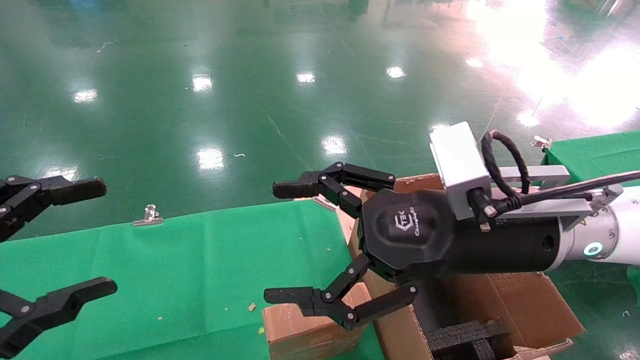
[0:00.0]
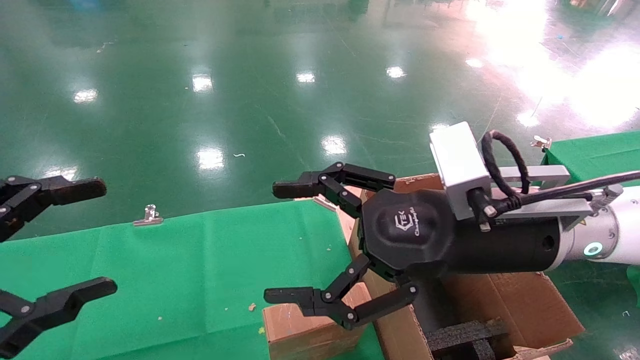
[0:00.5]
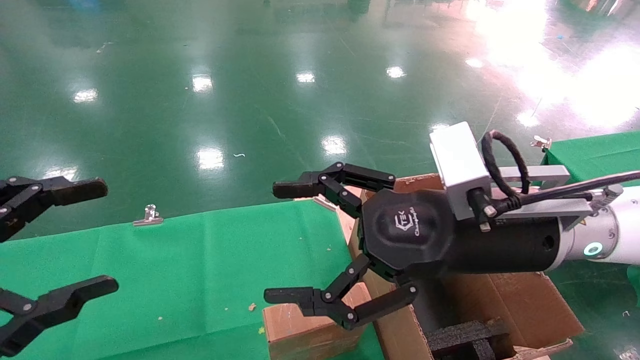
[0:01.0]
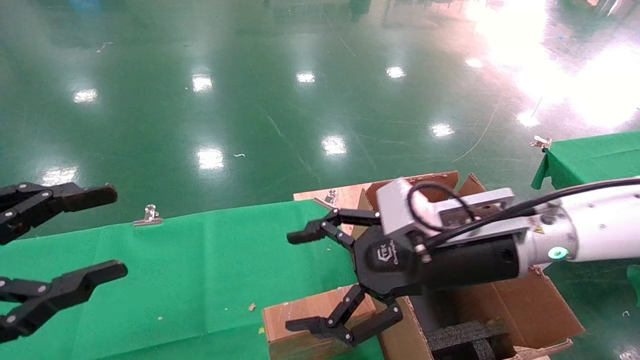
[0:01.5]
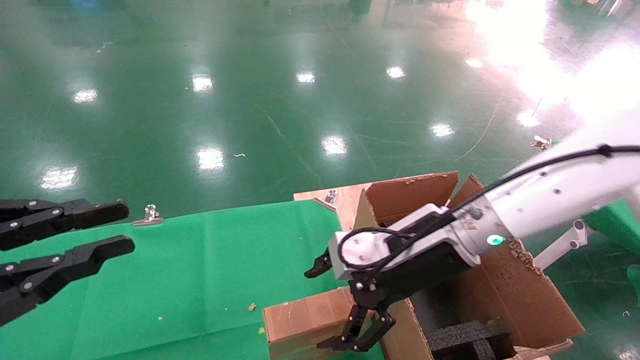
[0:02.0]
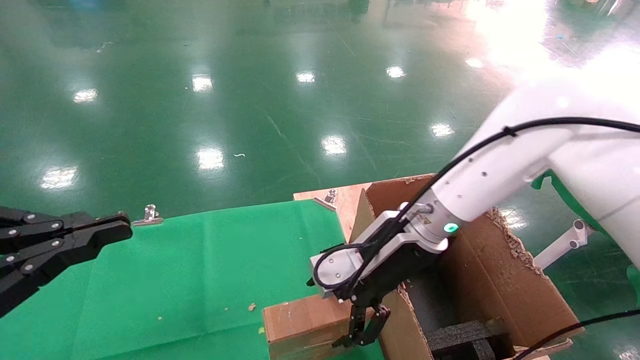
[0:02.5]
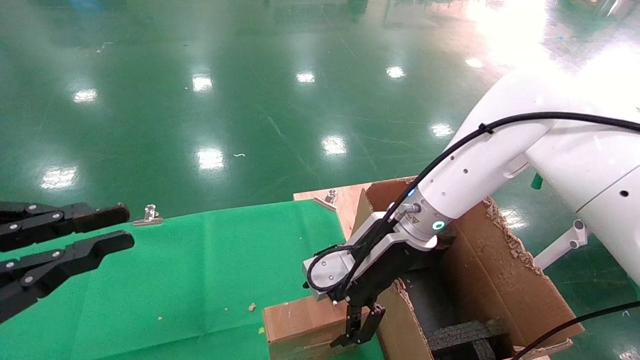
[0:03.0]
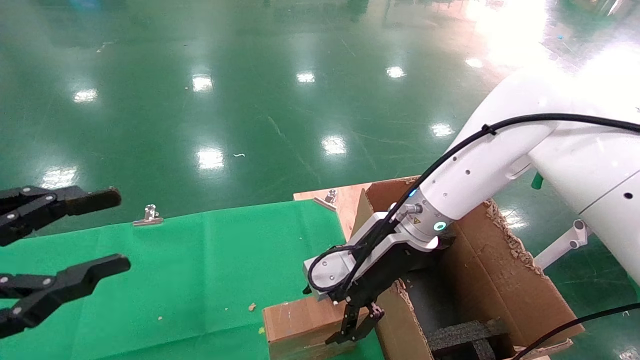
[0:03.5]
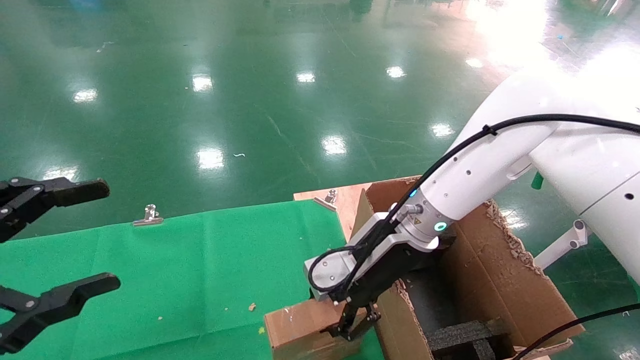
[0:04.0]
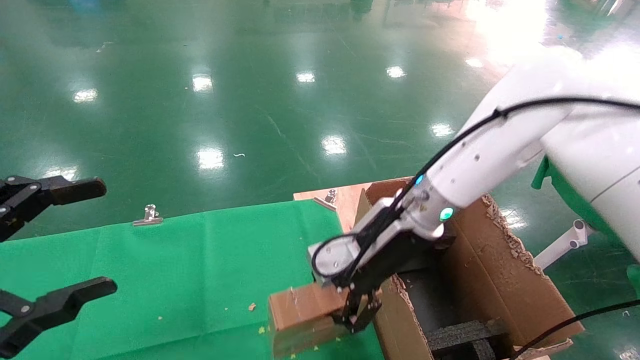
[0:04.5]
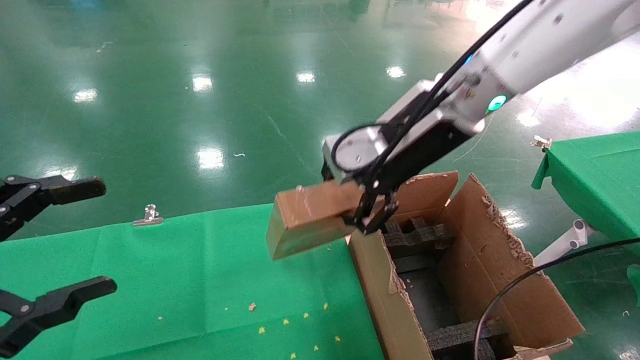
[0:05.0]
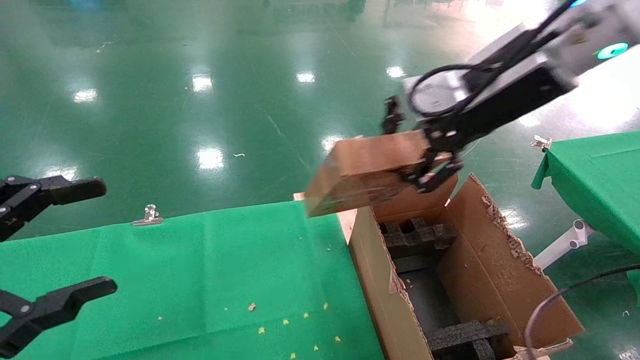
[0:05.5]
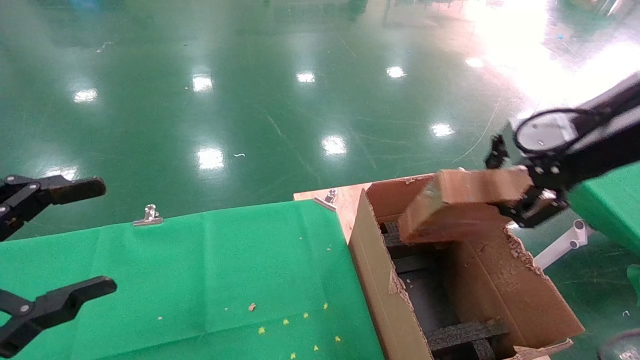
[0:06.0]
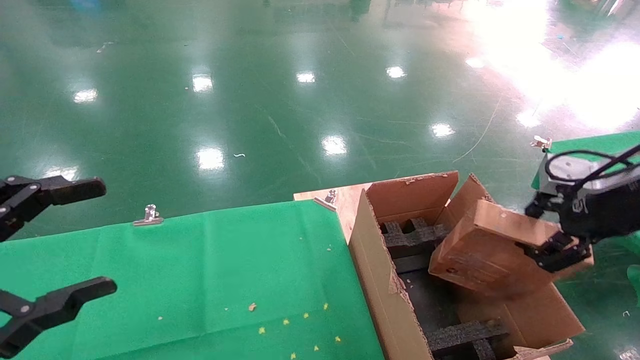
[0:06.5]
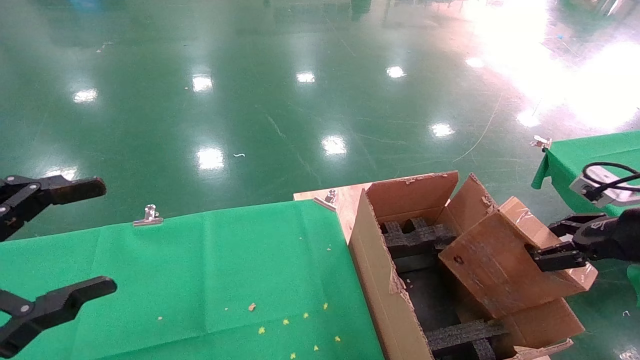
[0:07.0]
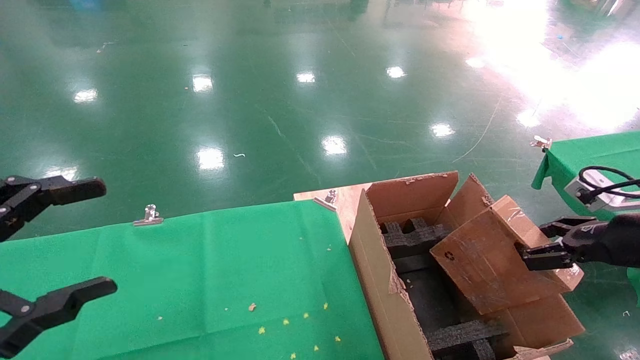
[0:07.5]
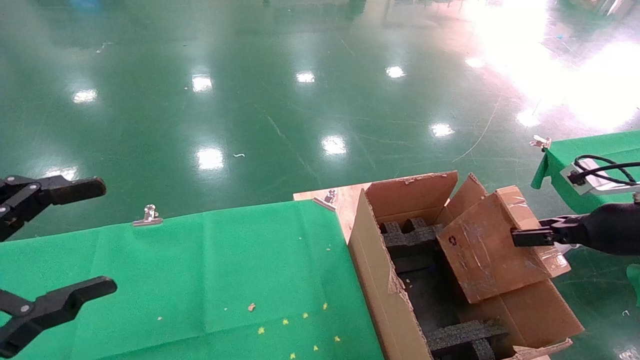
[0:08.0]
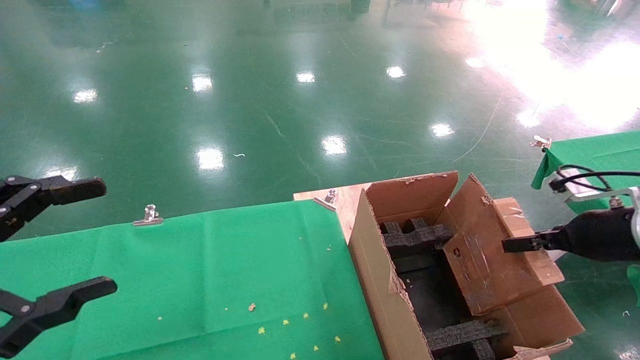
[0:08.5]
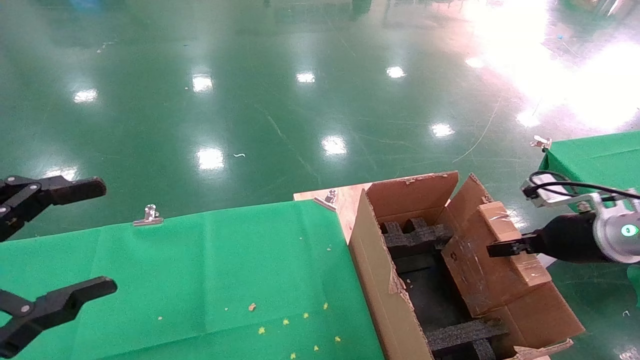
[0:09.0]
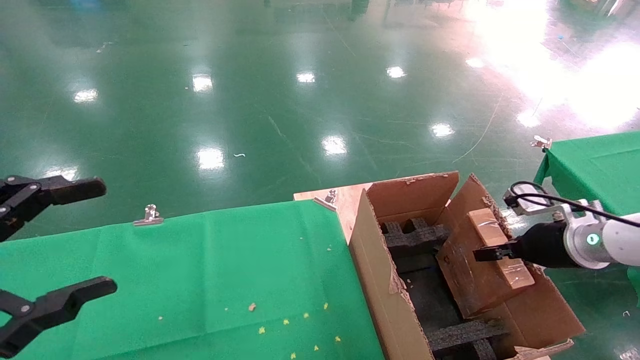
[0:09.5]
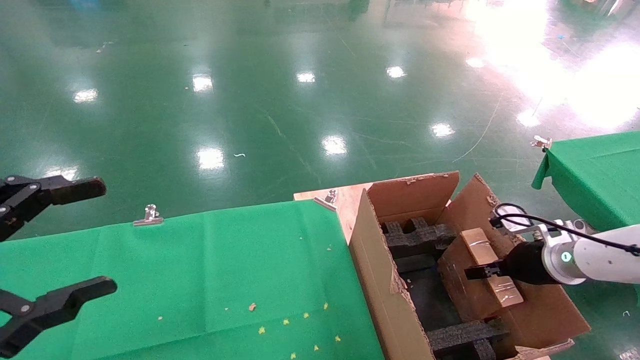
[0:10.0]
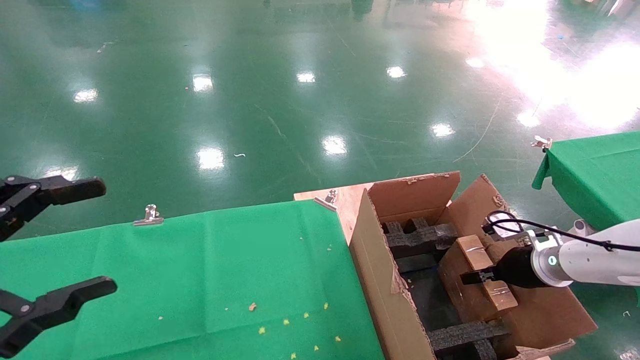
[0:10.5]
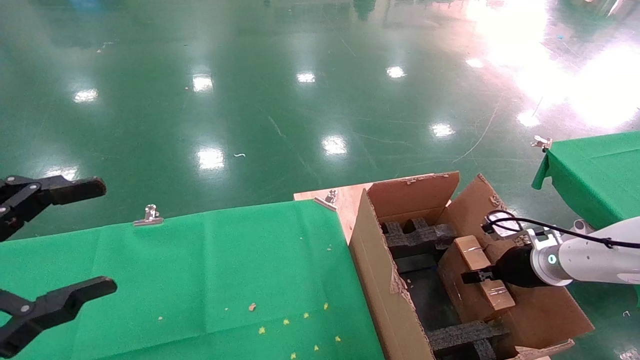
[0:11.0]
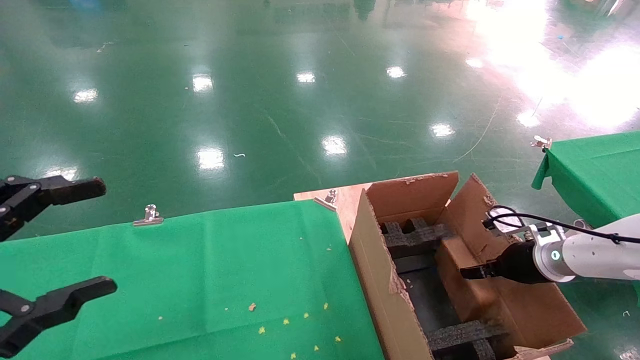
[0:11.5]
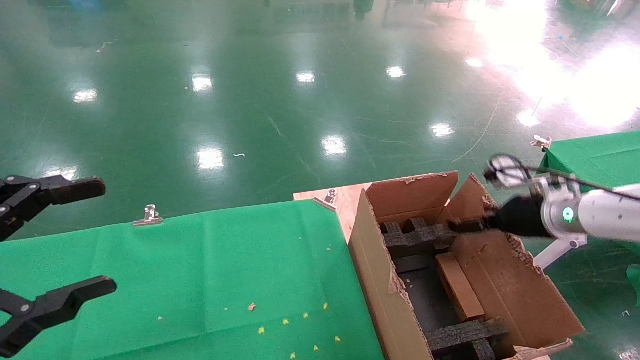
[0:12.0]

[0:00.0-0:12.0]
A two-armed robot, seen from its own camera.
Task of the whole recording: using a robotic arm to pick up a cardboard box and palace it the carton.
Step, 0:01.0 to 0:03.5: Pick up the mouse and the power cord paper box.
0:00.0 to 0:02.0: The right gripper goes some 10 cm forward and downward. The left gripper closes up.
0:02.0 to 0:04.0: The right gripper moves approximately 5 cm, and closes up. Meanwhile the left gripper opens.
0:04.0 to 0:06.0: The right gripper moves to the right, upward and backward, some 30 cm, and closes.
0:06.0 to 0:08.0: The right gripper goes roughly 20 cm downward and to the right.
0:08.0 to 0:10.0: The right gripper heads downward and forward, covering about 15 cm.
0:10.0 to 0:12.0: The right gripper travels upward and to the left by some 10 cm, and opens.

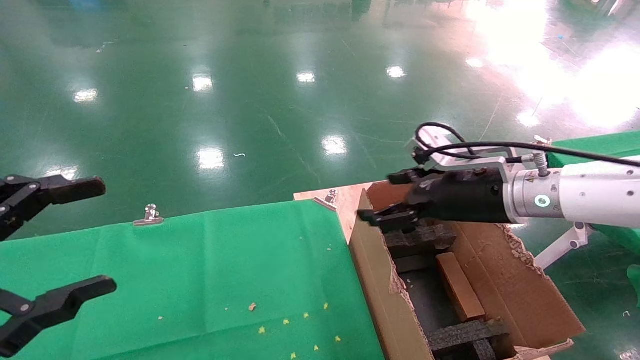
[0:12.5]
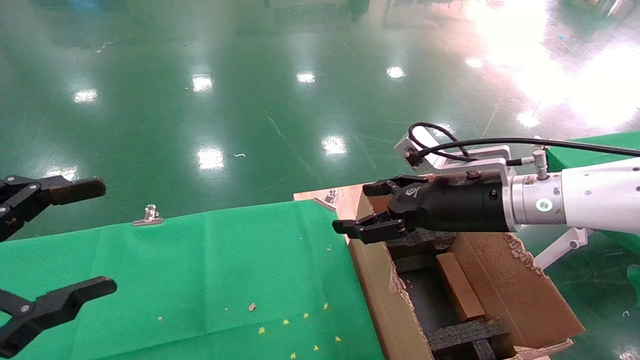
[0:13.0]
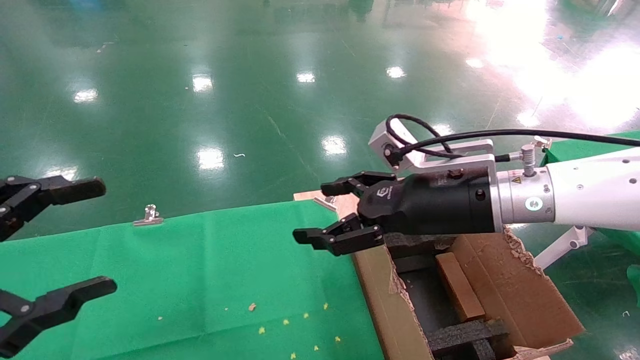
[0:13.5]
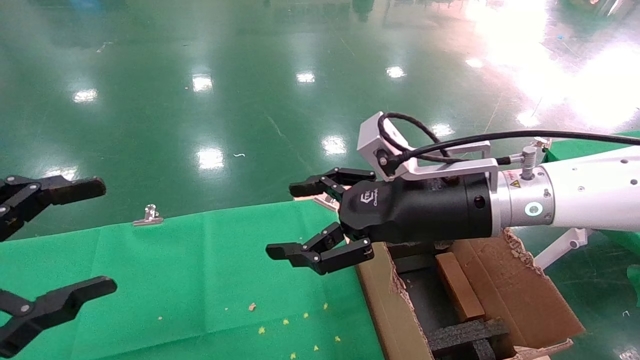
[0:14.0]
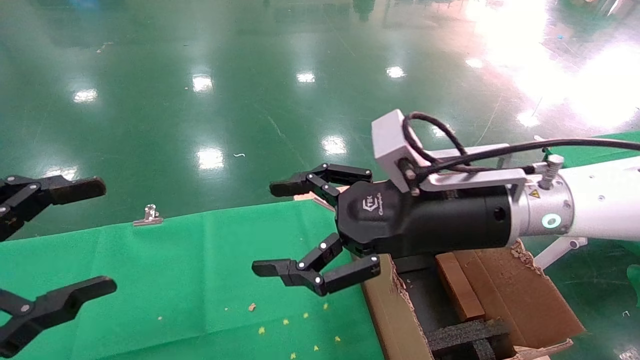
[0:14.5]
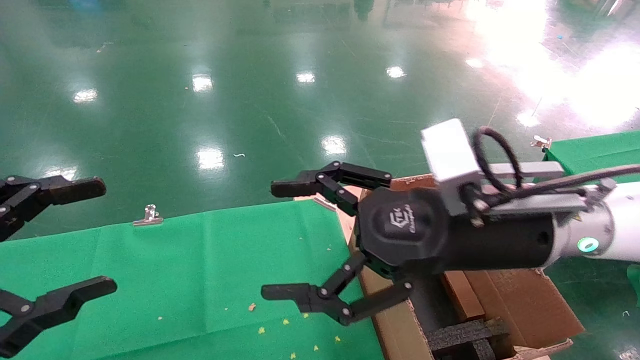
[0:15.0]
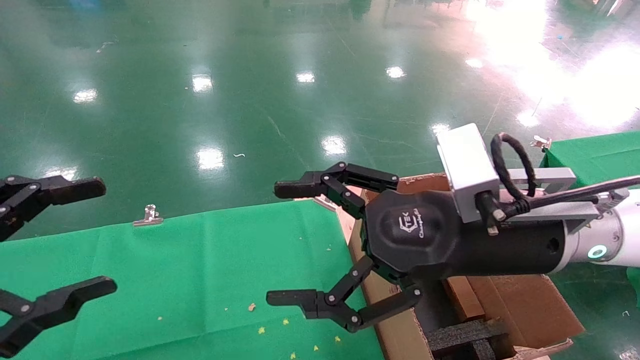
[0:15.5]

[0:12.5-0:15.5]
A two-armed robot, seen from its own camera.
Task of the whole recording: using a robotic arm to pick up a cardboard box and palace it the carton.
0:12.5 to 0:14.0: The right gripper heads to the left, covering some 10 cm.
0:14.0 to 0:15.5: The right gripper moves backward, about 5 cm.
